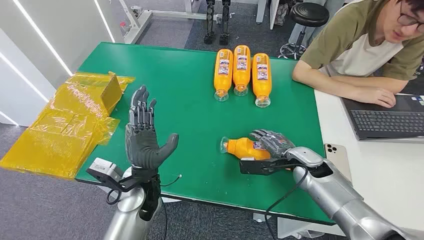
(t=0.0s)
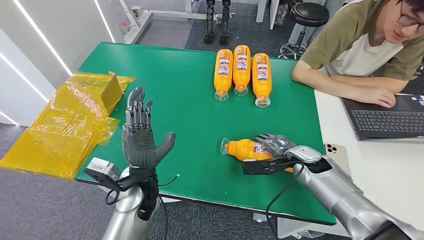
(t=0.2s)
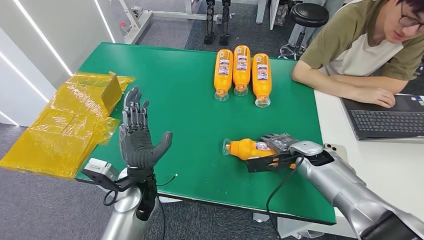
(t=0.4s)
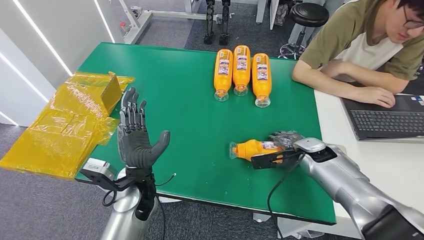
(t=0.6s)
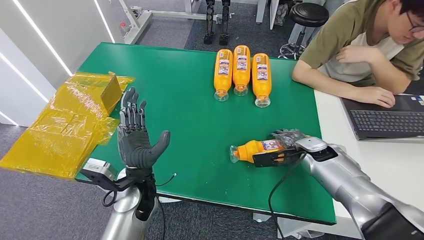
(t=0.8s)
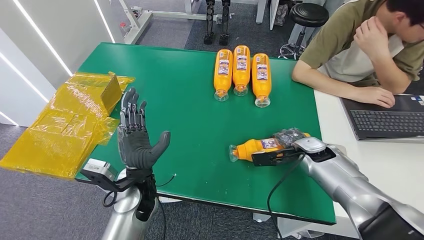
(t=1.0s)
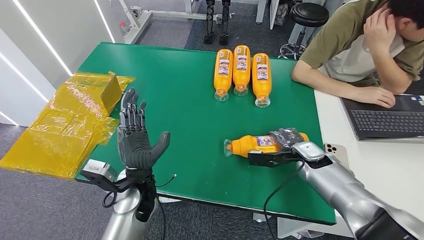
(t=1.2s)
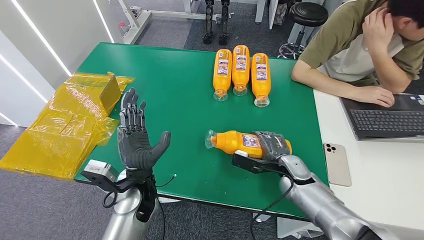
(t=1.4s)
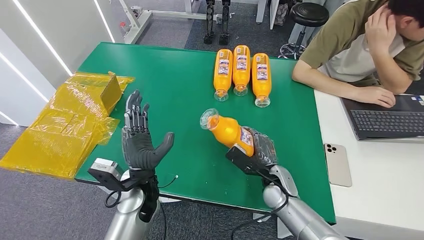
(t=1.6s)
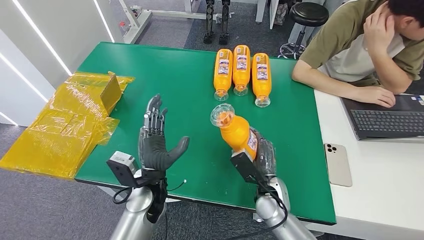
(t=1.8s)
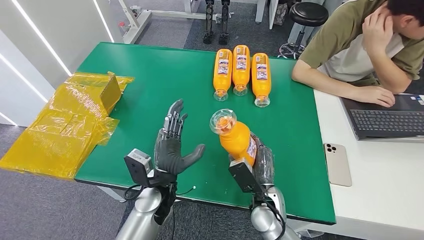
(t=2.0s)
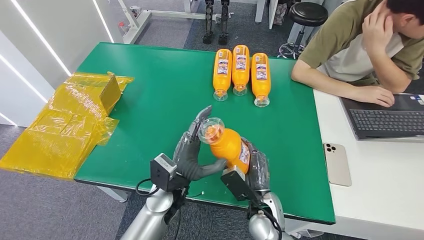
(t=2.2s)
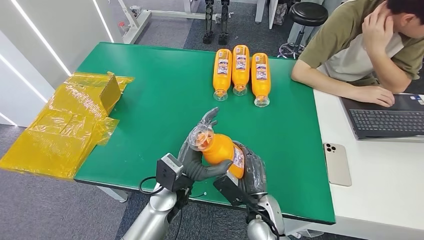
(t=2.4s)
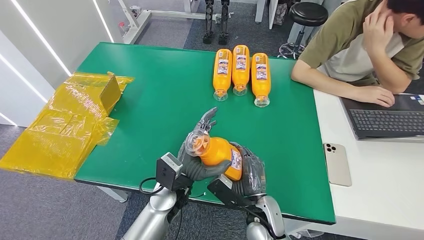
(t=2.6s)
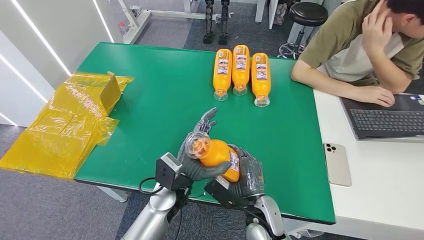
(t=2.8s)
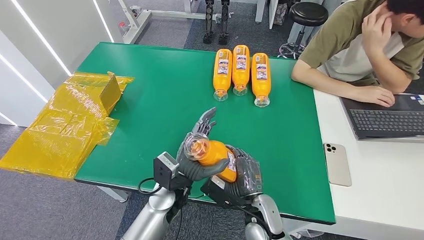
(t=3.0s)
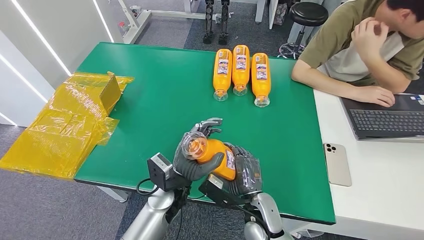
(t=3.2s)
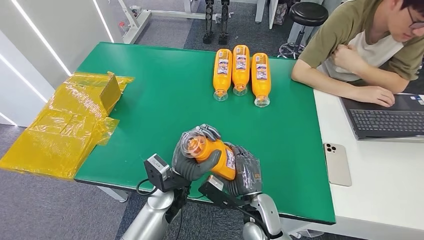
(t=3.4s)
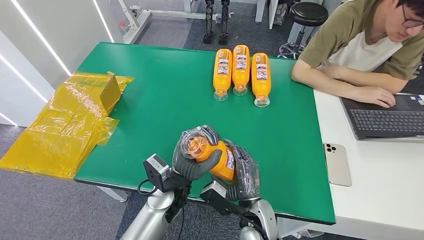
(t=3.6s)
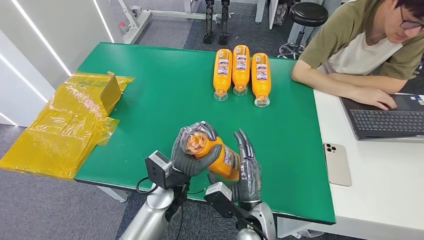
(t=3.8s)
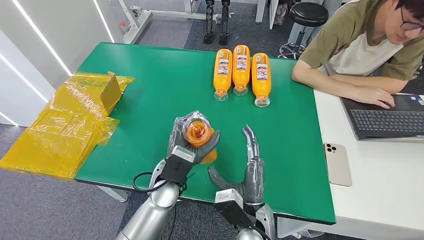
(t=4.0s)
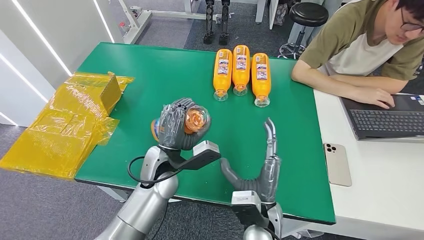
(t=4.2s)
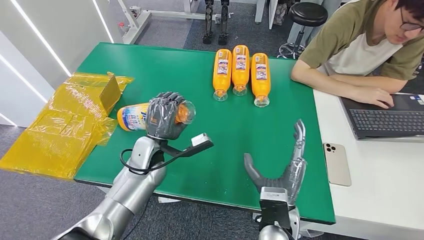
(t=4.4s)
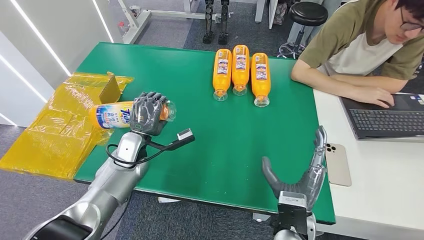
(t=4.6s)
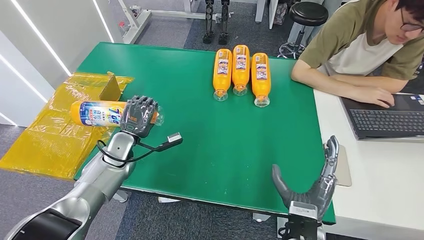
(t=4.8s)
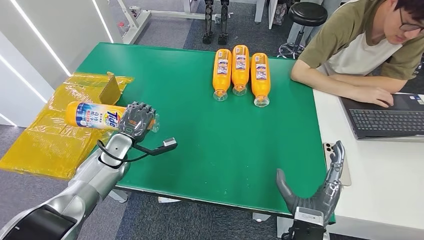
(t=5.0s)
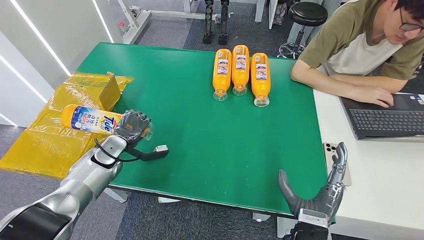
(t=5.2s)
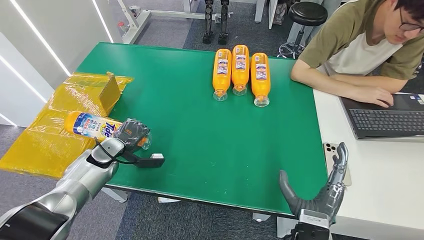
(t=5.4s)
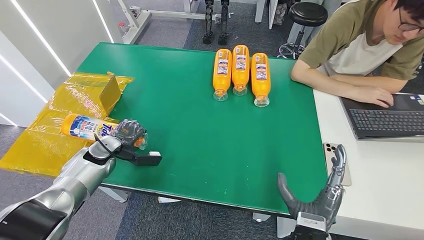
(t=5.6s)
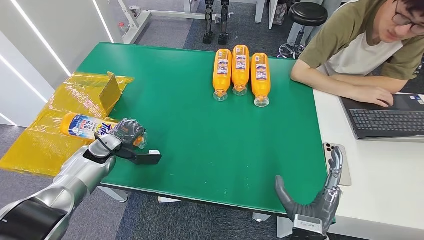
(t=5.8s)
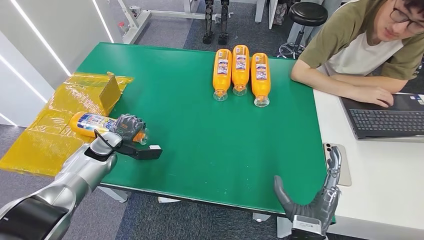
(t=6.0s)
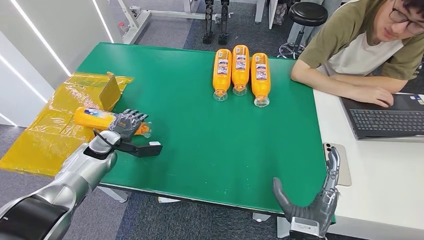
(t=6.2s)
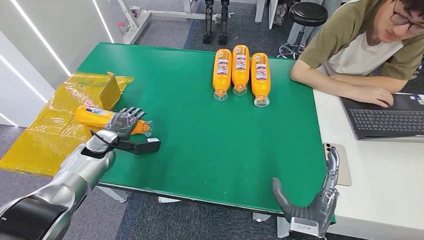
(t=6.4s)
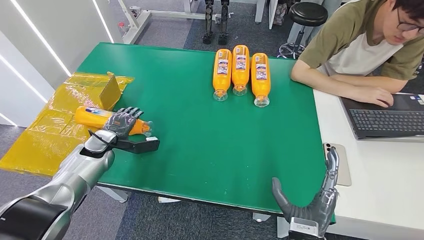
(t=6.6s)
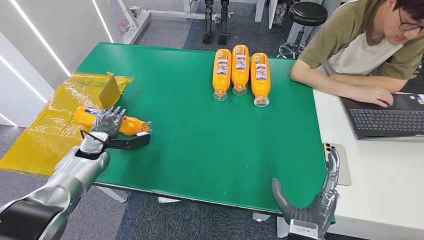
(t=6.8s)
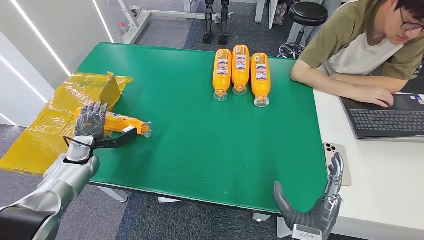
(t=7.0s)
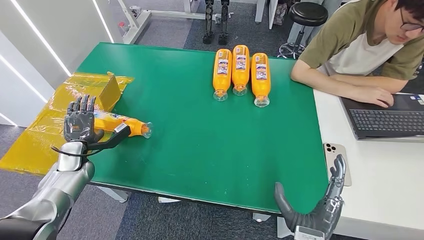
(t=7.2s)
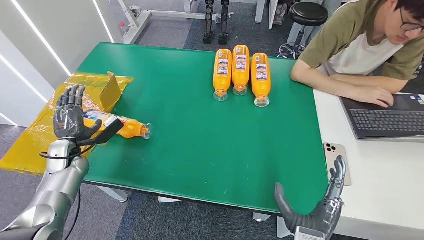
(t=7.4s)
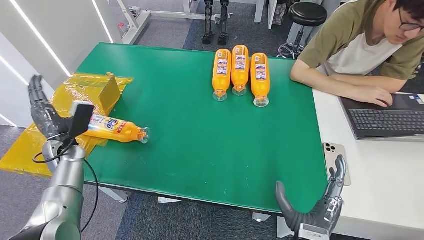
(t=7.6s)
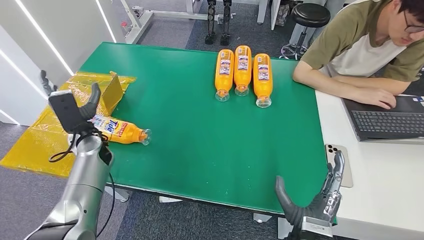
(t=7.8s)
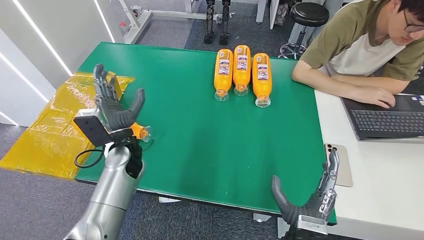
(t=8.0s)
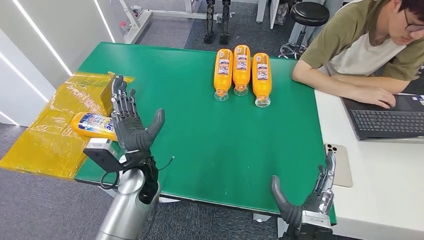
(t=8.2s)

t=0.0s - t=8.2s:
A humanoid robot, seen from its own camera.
Step, t=0.0s - t=3.2s: Pick up the bottle from the table.
Step, t=3.4s - t=8.2s: Turn the bottle to the front side.
t=5.0s - t=6.6s: The left hand shifts some 5 cm to the left.
t=6.6s - t=8.2s: The left hand is displaced to the right by about 20 cm.
